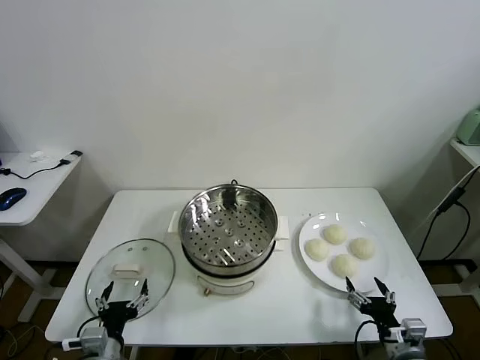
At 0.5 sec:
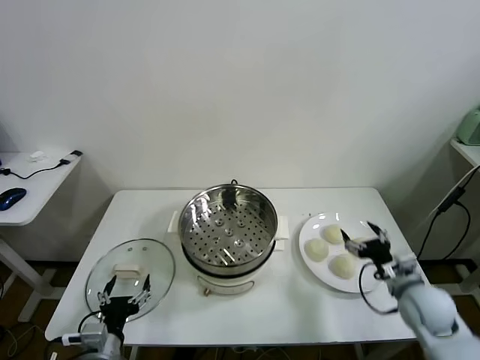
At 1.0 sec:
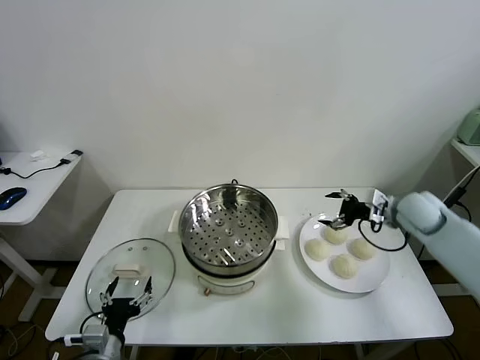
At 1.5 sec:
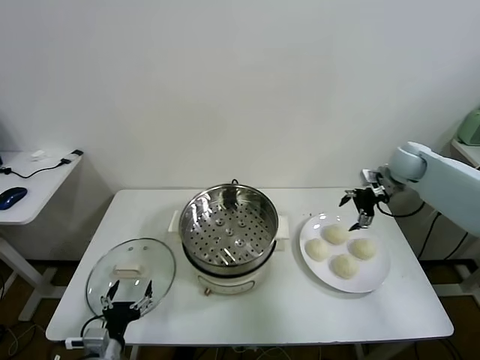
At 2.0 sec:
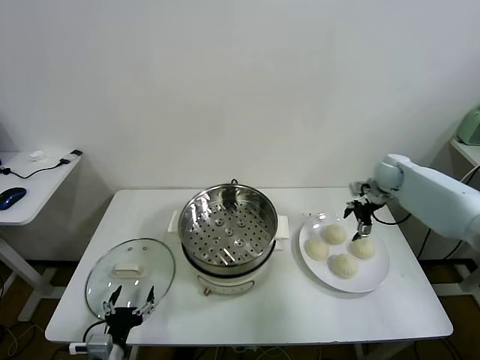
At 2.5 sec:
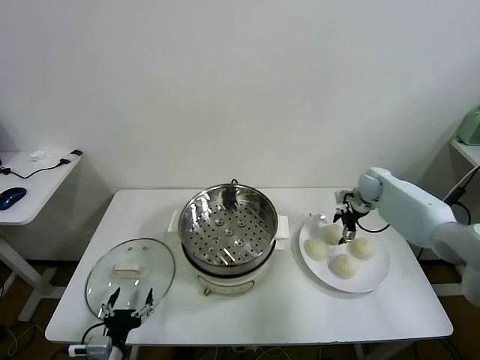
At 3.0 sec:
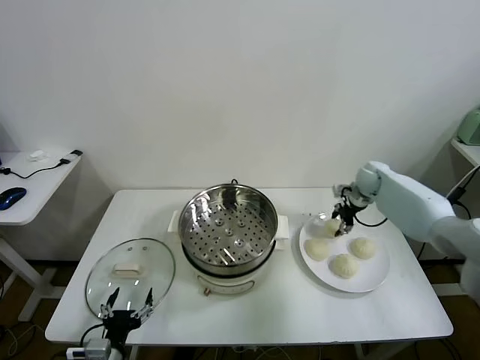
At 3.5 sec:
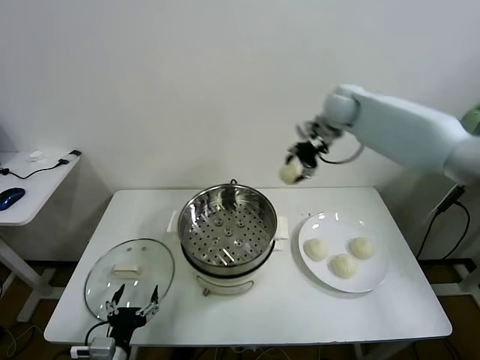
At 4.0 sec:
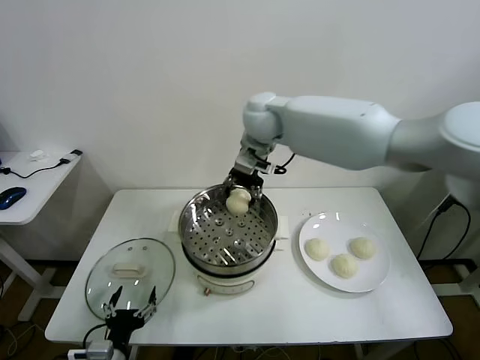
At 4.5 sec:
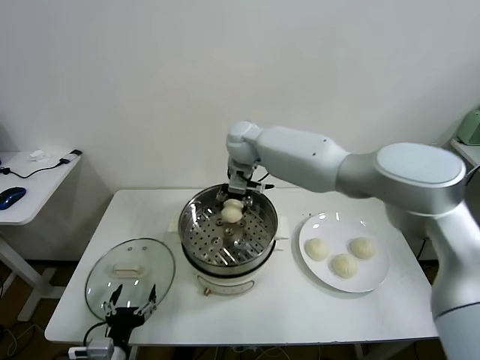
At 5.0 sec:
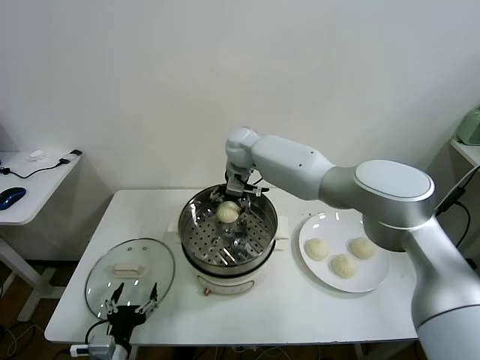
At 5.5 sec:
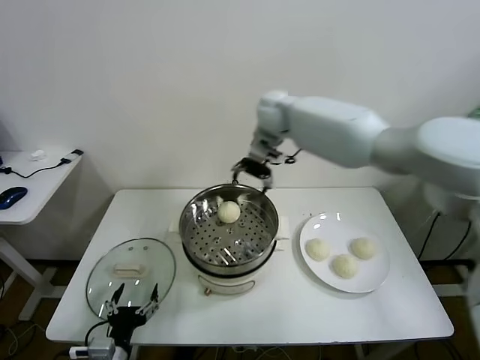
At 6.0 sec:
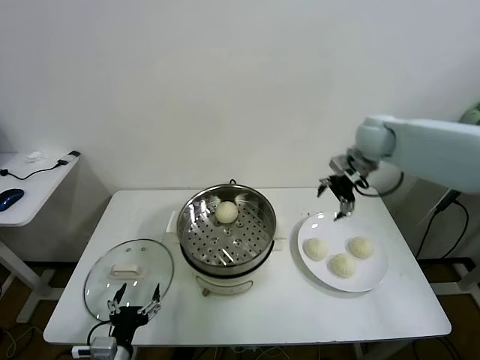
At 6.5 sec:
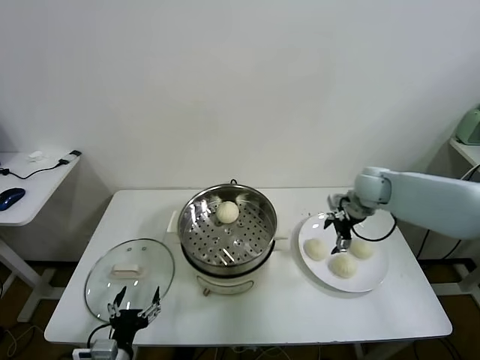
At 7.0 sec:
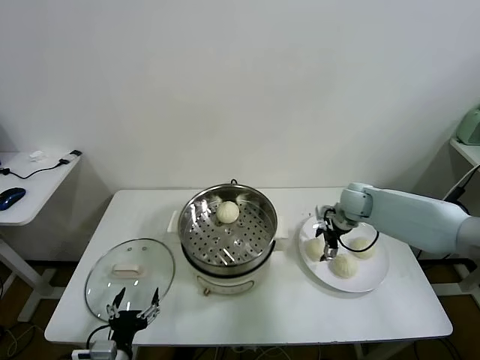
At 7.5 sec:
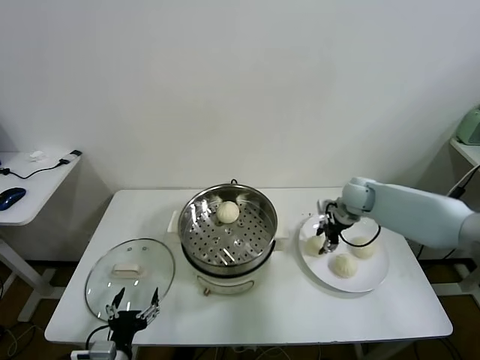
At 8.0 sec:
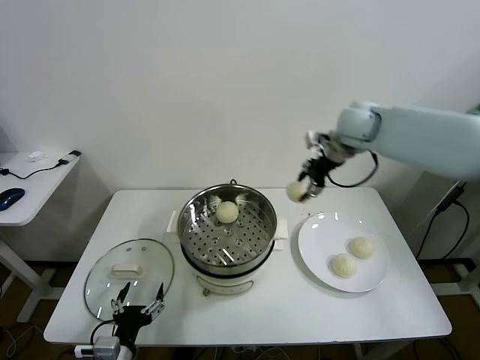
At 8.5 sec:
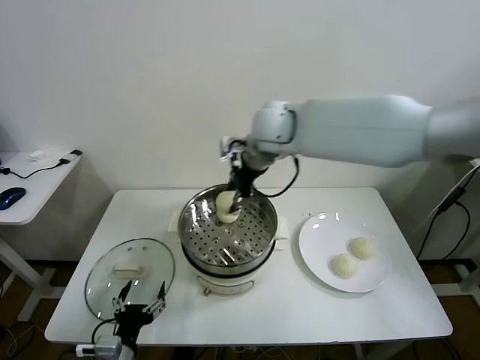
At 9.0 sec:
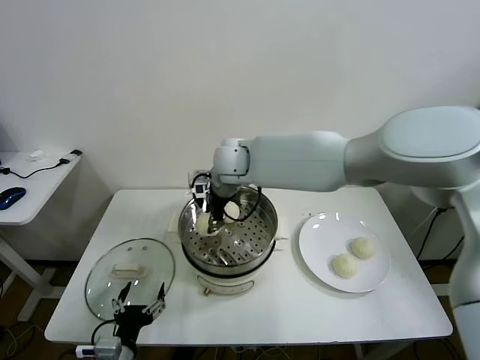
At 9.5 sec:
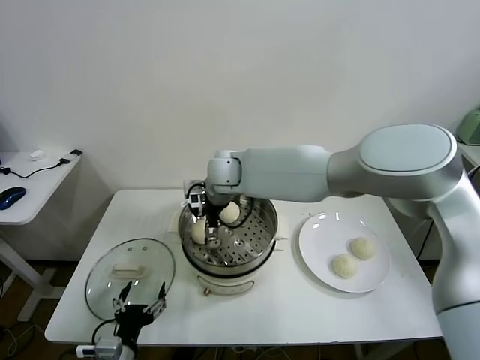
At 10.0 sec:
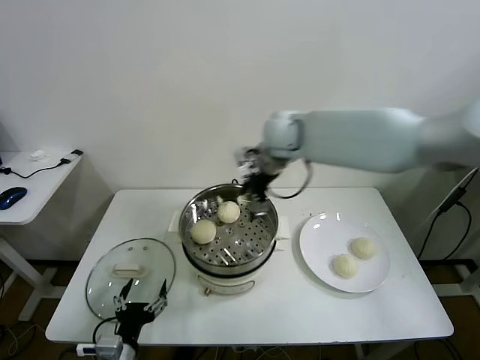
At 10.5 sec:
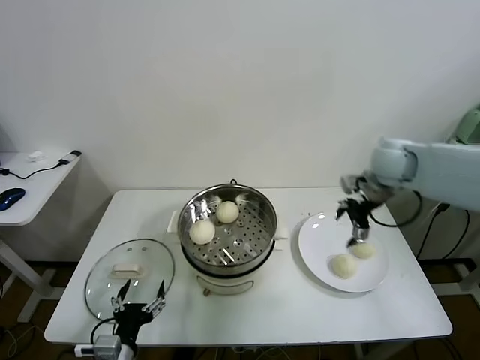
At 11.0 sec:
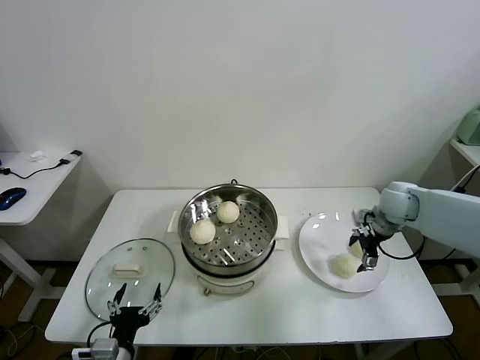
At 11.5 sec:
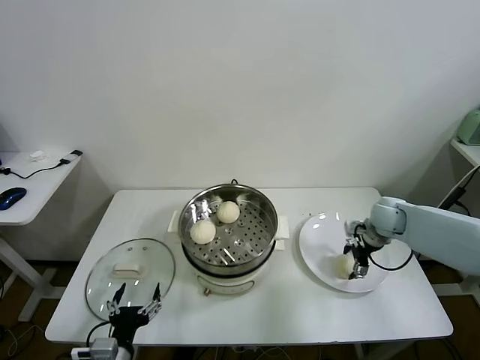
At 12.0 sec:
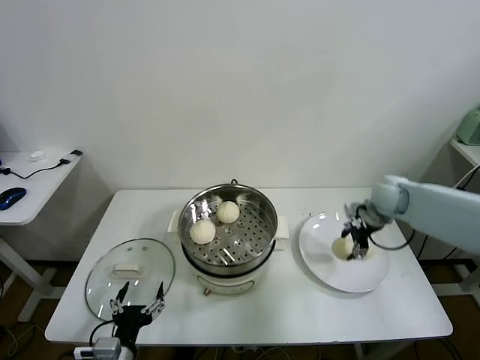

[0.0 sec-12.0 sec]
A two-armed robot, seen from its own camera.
Task of the whole recording: take steamed baozi put them in steamer.
Step, 0.0 sec to 2.5 sec: Grasp the baozi in the plate with right gripper.
Step, 3.0 sec to 5.0 sec: Place the baozi on the steamer with right gripper.
Step, 5.5 sec to 7.0 sec: Grasp the baozi in the plate with right gripper.
Step, 7.5 sec to 9.0 sec: Place the baozi on the steamer with right gripper.
Step, 9.5 sec to 11.5 sec: Grasp the baozi in the plate with right gripper.
2.0 sec to 4.0 sec: The right gripper moves to the left and upward, about 40 cm, and closes.
4.0 sec to 6.0 sec: The right gripper shifts some 30 cm to the right, and opens up.
6.0 sec to 8.0 sec: The right gripper shifts about 15 cm to the left and upward, and closes up.
8.0 sec to 10.0 sec: The right gripper goes to the left and returns, about 25 cm each way, and opens up.
10.0 sec to 12.0 sec: The right gripper goes roughly 25 cm to the right and downward, and closes up.

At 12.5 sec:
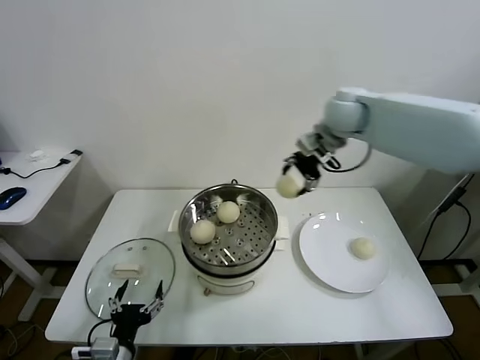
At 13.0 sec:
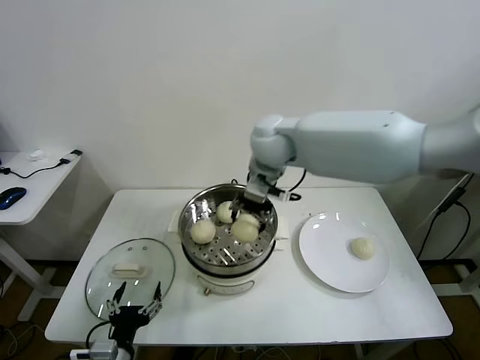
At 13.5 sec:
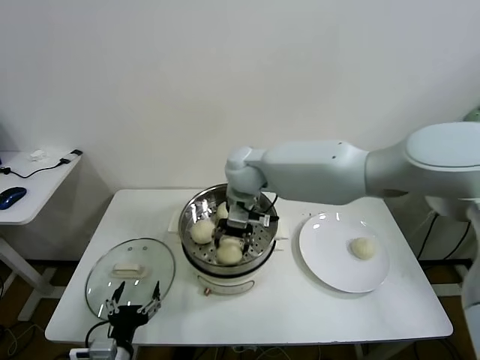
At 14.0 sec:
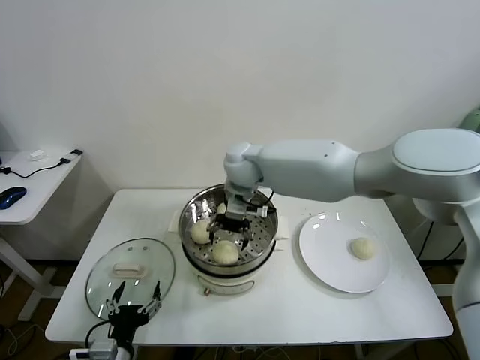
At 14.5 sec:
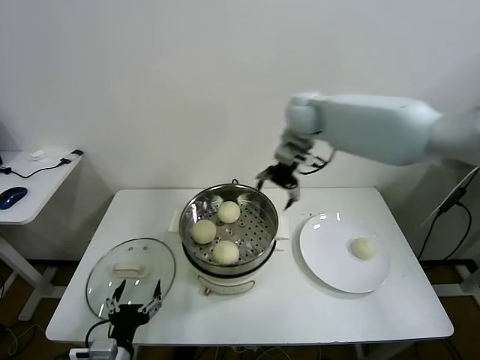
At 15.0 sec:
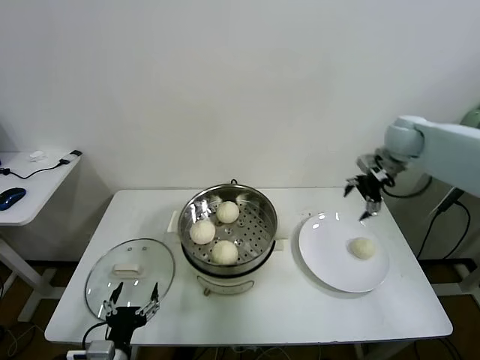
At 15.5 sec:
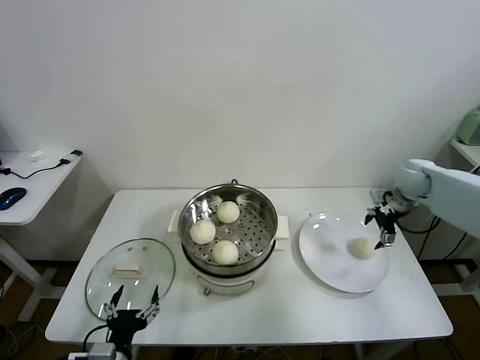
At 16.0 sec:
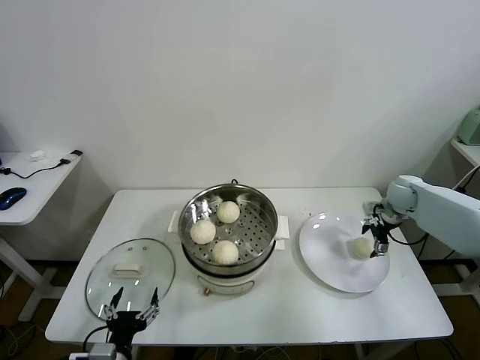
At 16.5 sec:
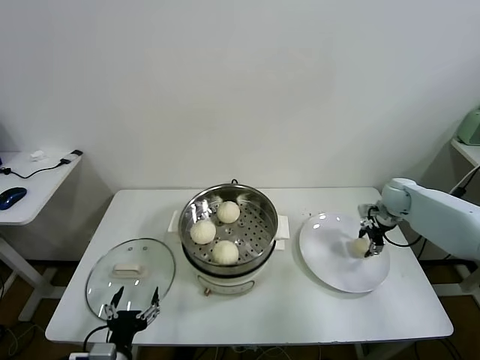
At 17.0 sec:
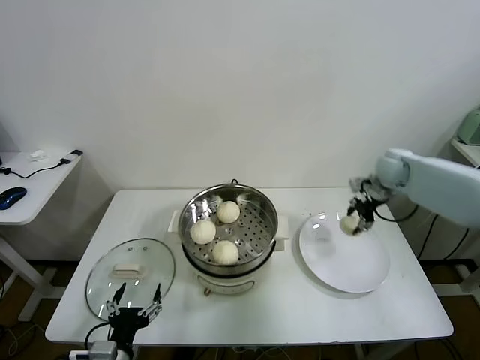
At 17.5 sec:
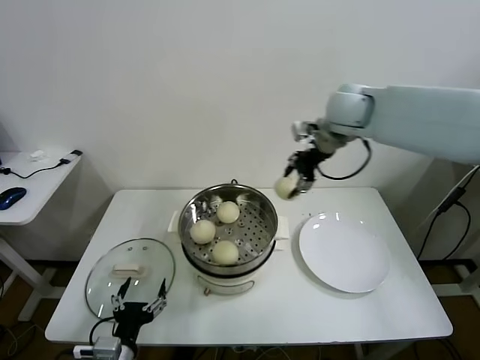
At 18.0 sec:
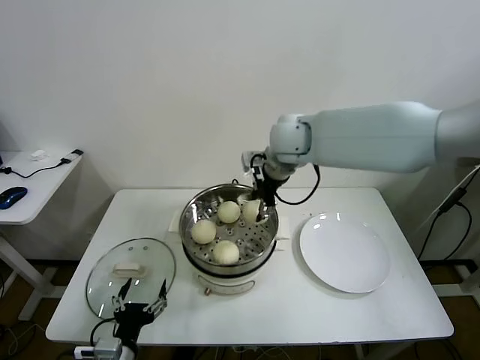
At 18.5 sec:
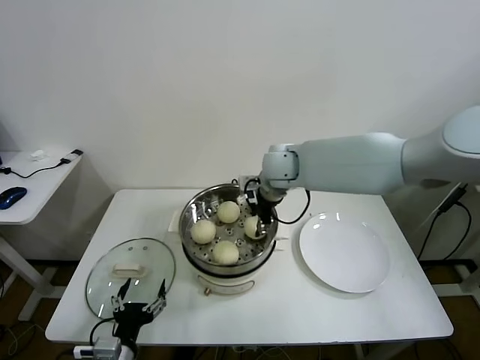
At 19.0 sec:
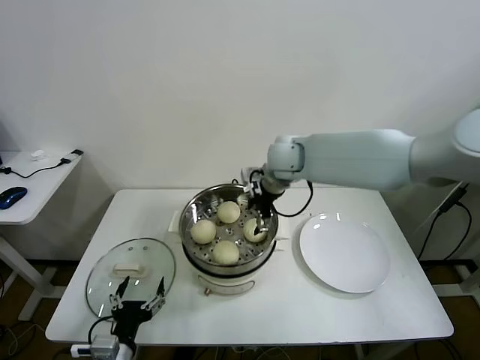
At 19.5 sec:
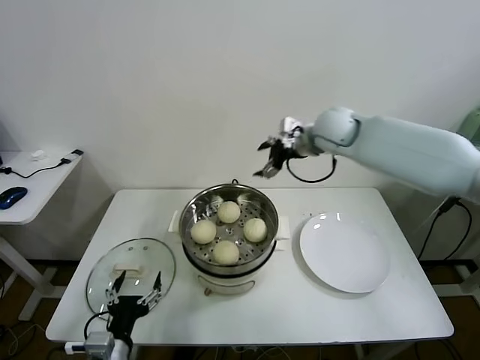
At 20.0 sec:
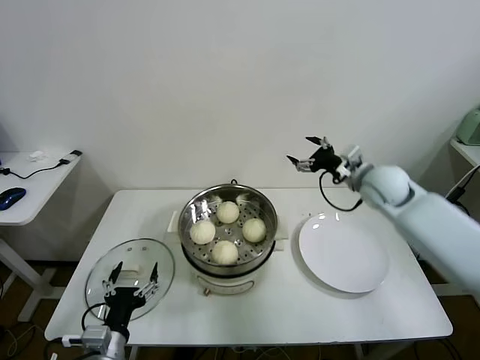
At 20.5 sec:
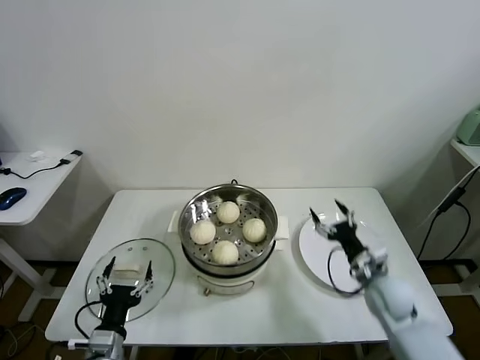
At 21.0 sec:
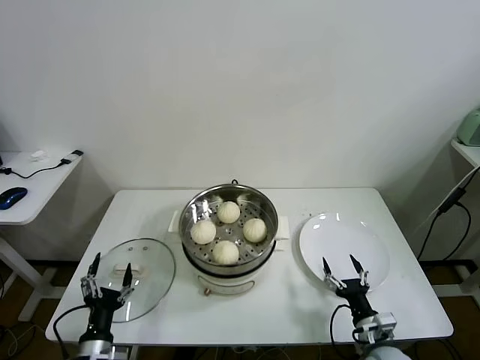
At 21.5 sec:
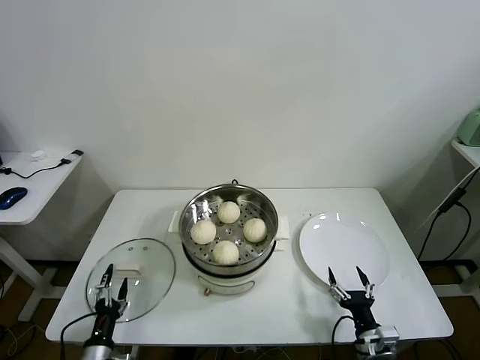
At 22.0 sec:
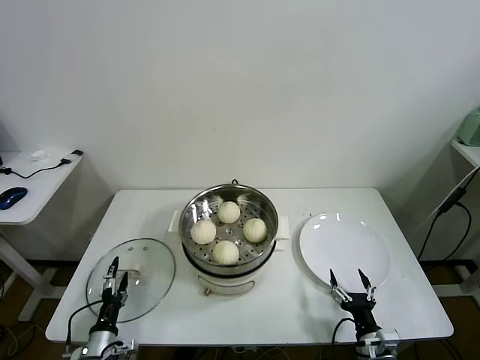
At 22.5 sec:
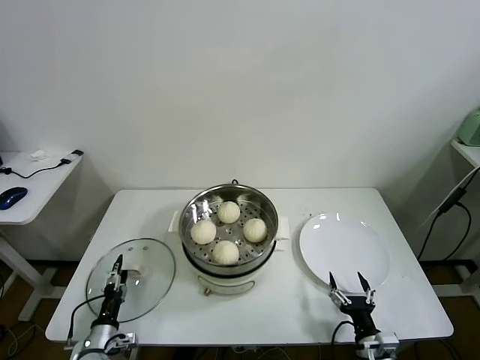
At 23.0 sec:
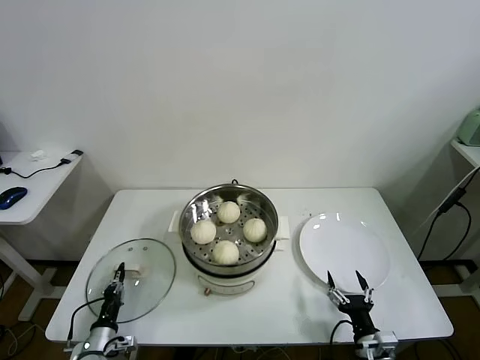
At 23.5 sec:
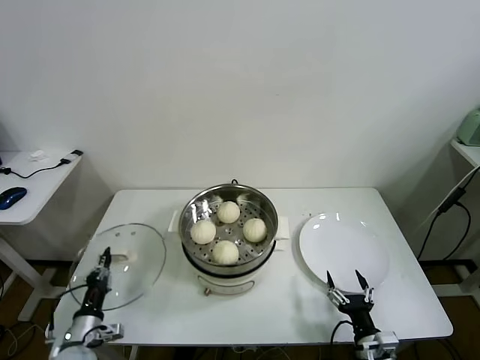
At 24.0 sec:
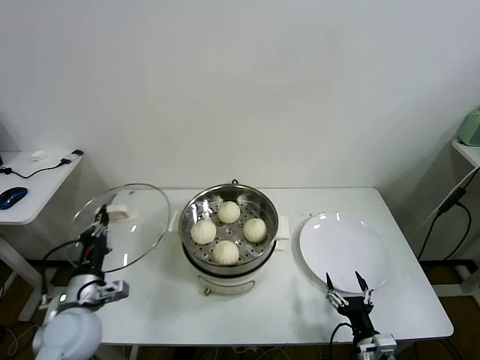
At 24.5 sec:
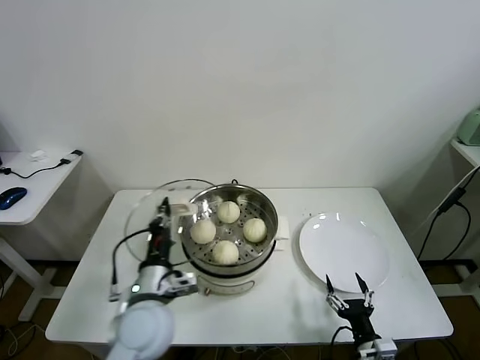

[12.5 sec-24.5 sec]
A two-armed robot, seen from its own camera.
Task of the whole recording: take steamed baozi put them in steamer.
Step, 14.5 sec to 16.0 sec: Grasp the baozi in the plate with right gripper.
Step, 16.5 sec to 18.5 sec: Place the baozi on the steamer with right gripper.
Step, 19.0 sec to 23.0 sec: Grasp the pot lid with left gripper.
12.5 sec to 14.5 sec: The right gripper reaches approximately 20 cm to the left, then returns, and opens up.
14.5 sec to 16.5 sec: The right gripper moves to the right and downward, approximately 35 cm, and closes its fingers.
16.5 sec to 18.5 sec: The right gripper is displaced to the left and upward by about 35 cm.
18.5 sec to 20.5 sec: The right gripper shifts roughly 40 cm to the right, downward and backward, and opens its fingers.
20.5 sec to 22.5 sec: The right gripper is displaced backward and downward by some 20 cm. Meanwhile the left gripper is displaced downward and to the left by approximately 15 cm.
22.5 sec to 24.5 sec: The left gripper is displaced upward and to the right by roughly 30 cm, and closes up.

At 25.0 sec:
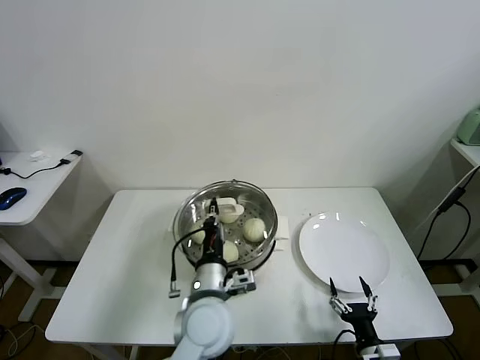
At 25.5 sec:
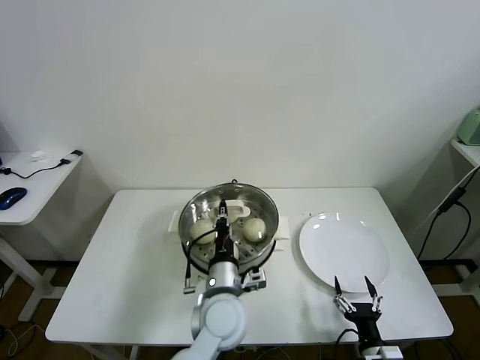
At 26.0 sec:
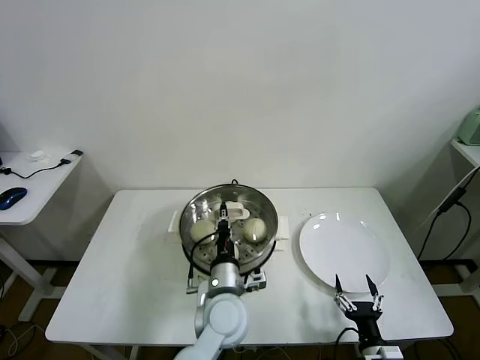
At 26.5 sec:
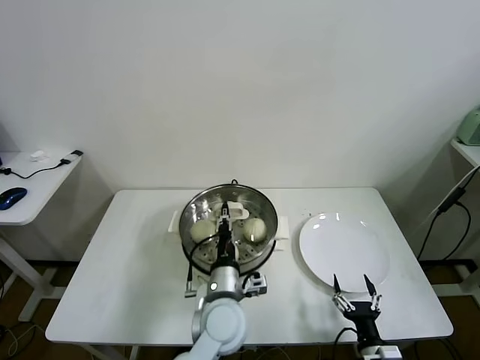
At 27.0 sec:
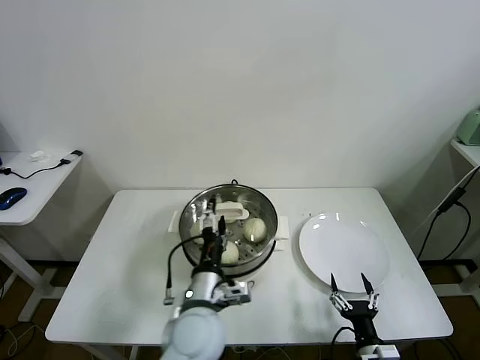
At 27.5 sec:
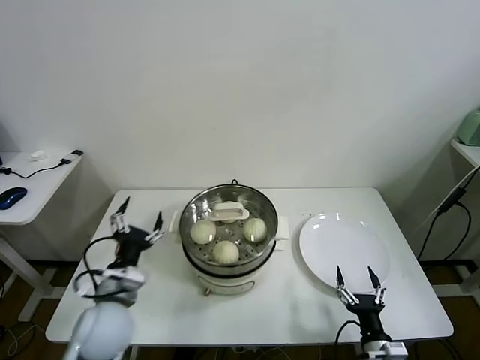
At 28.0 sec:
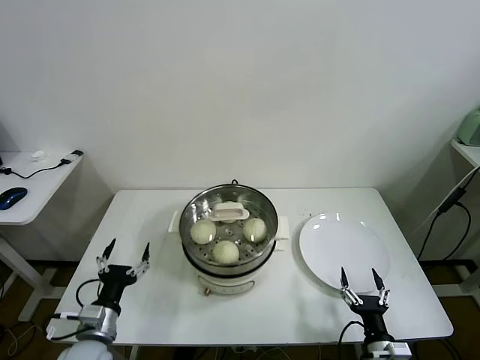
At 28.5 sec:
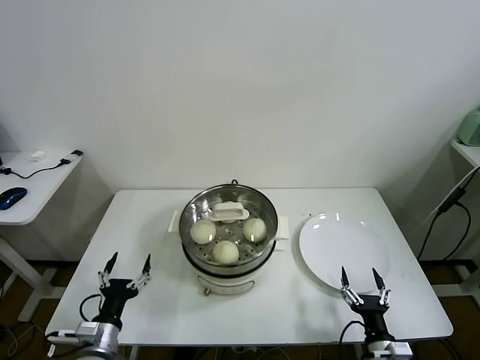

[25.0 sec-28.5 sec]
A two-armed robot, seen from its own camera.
Task of the whole recording: take steamed baozi put them in steamer.
25.0 sec to 27.0 sec: The left gripper opens.
27.0 sec to 28.5 sec: The left gripper is displaced to the left and downward by some 25 cm.
